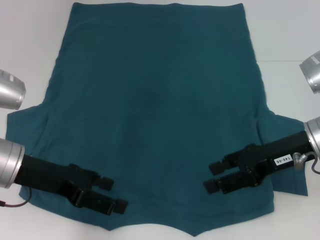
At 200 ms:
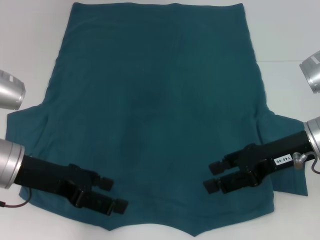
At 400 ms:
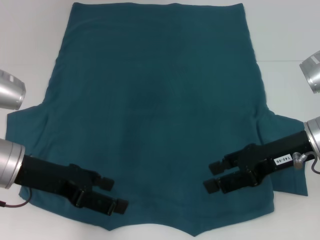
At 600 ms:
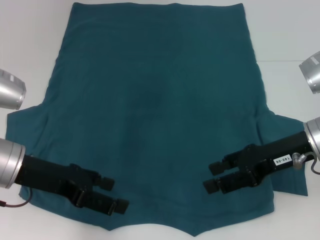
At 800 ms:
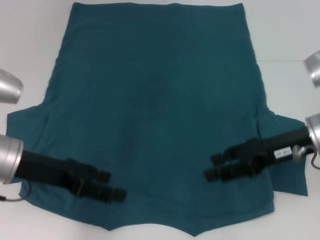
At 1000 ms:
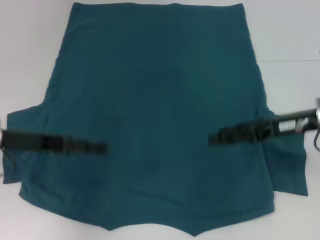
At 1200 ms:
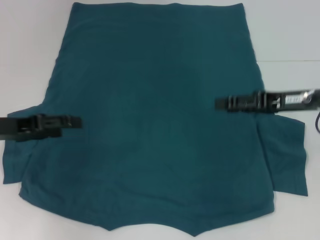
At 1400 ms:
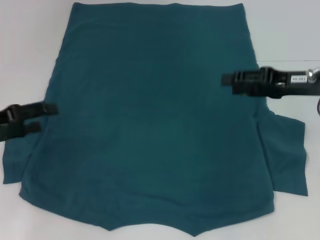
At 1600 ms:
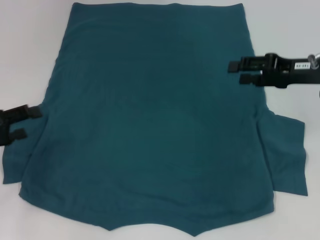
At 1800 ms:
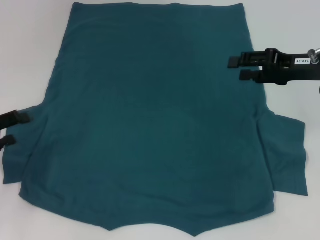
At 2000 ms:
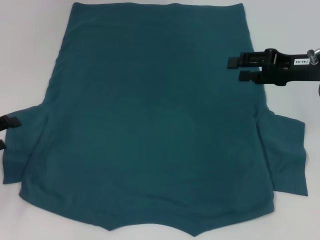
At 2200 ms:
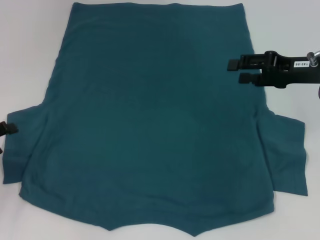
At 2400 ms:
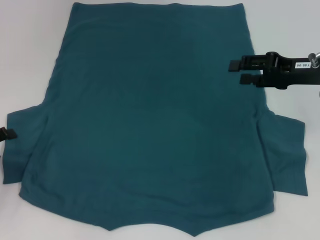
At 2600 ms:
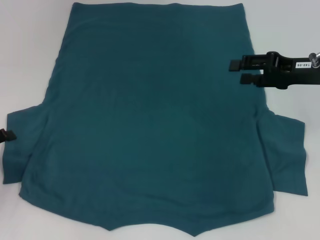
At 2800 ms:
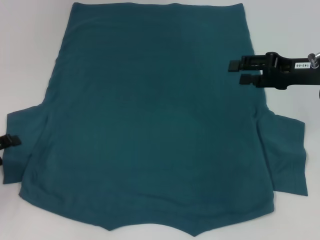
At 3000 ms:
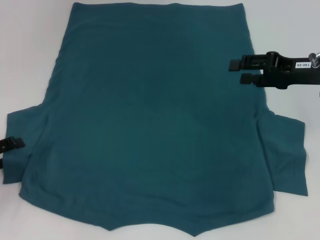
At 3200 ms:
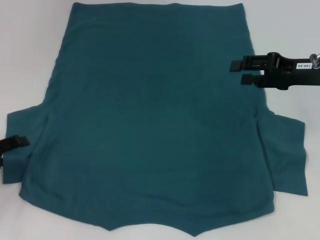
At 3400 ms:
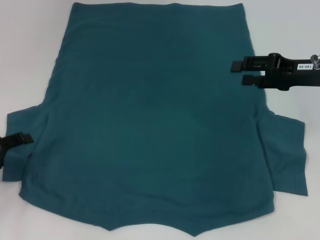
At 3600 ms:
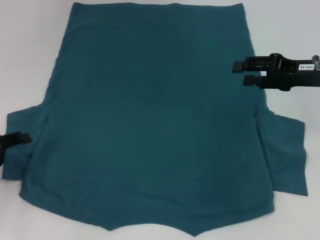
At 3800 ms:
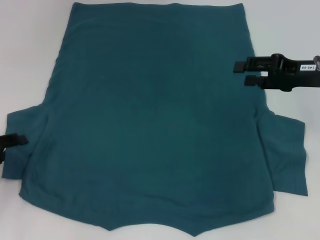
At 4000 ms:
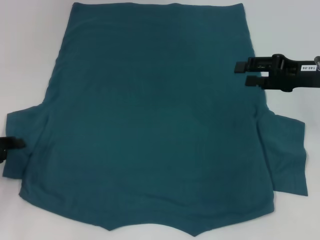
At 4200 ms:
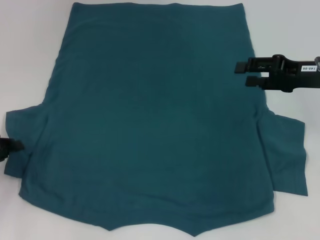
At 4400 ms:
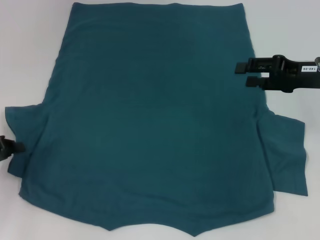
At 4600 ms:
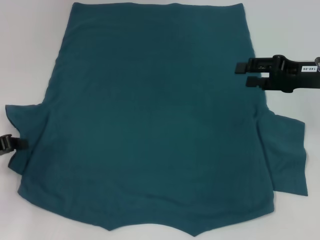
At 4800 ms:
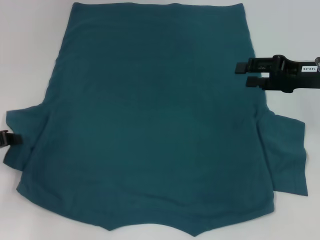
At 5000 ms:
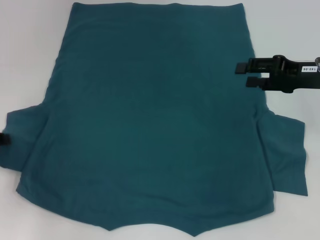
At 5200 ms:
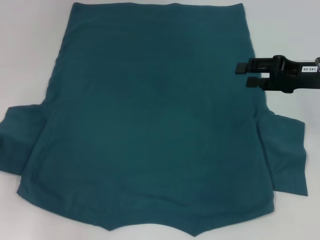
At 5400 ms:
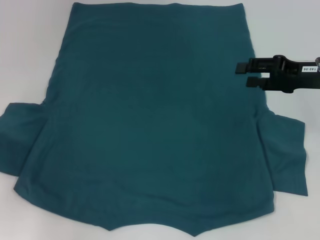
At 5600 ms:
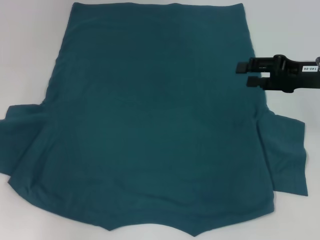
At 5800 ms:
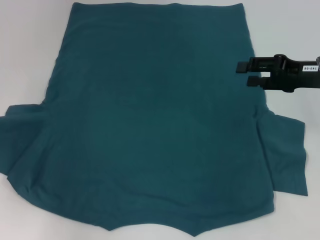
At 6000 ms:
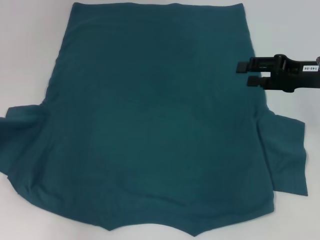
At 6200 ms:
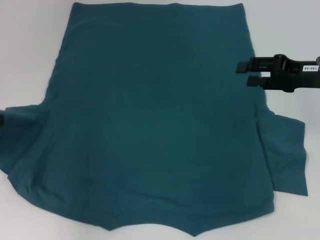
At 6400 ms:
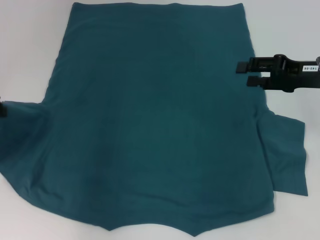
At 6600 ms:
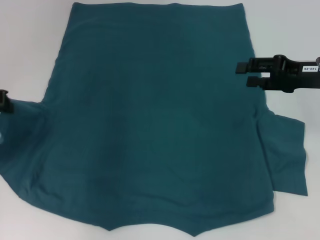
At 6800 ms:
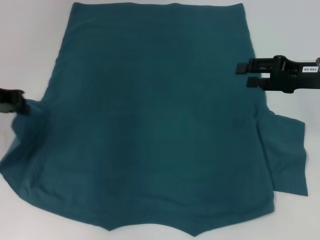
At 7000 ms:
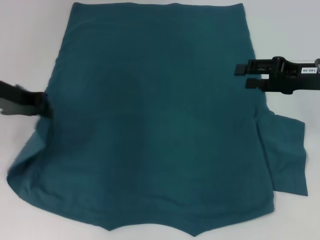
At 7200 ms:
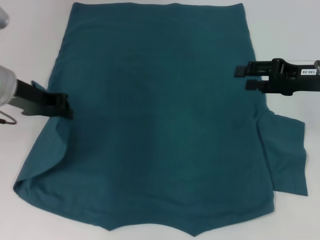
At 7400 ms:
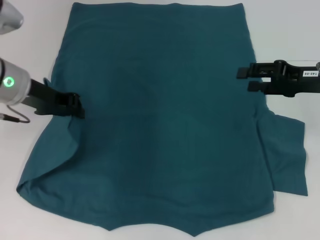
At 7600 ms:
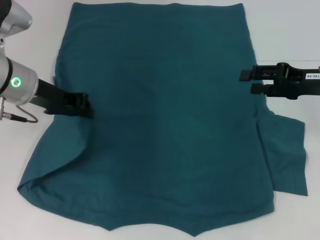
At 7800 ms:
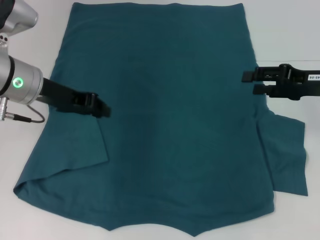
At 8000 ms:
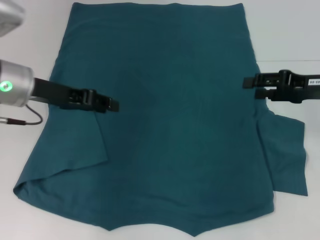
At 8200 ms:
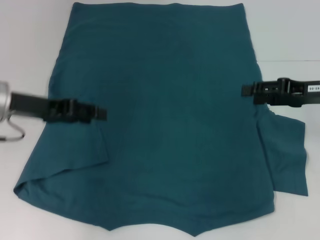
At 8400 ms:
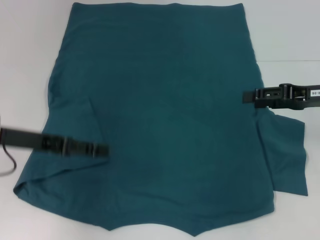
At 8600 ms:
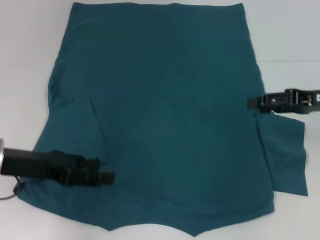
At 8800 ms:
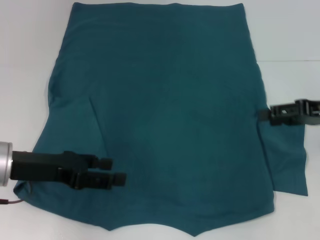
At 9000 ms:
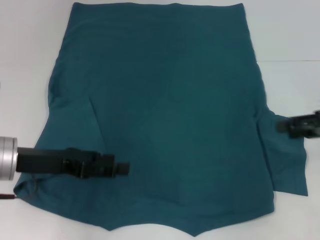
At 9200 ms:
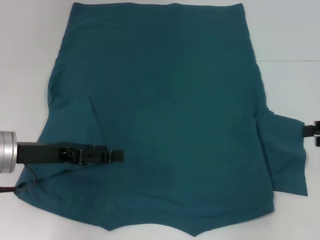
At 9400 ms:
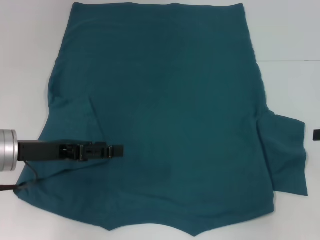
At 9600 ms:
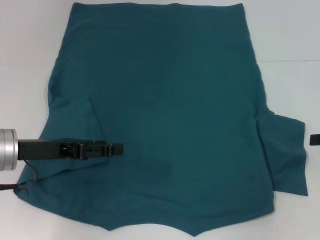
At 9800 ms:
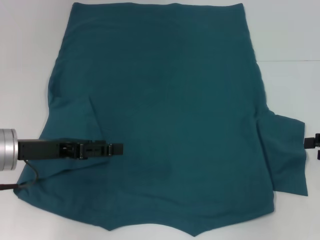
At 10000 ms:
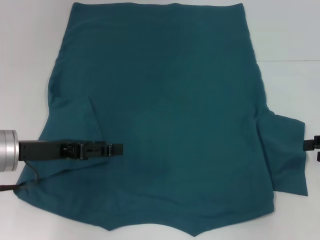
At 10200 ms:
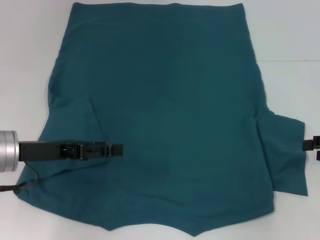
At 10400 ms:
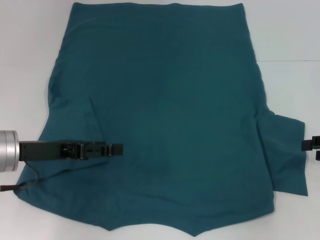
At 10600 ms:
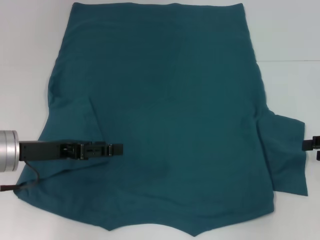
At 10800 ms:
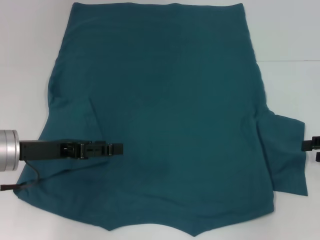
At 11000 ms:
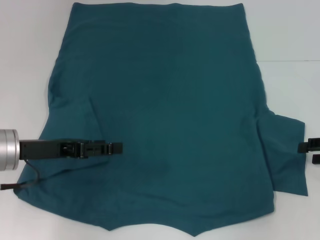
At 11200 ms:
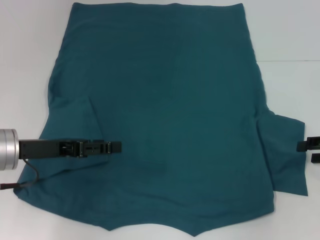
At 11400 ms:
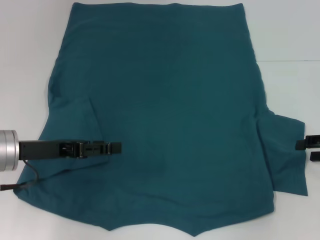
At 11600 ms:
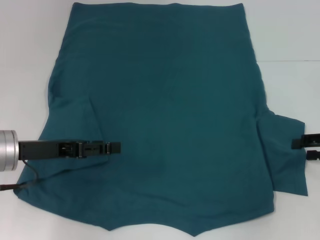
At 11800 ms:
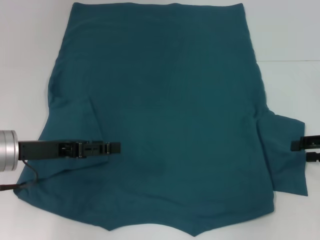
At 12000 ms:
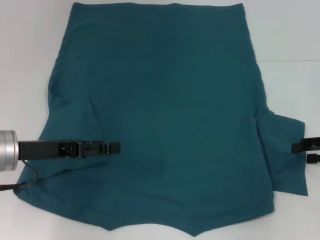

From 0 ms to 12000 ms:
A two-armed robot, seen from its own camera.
Step, from 0 ms to 8400 ms: Fold the bottom left sleeve with your left hand.
From 0 ms to 1600 ms: The right gripper moves forward and to the right, roughly 10 cm. Meanwhile the left gripper shifts about 10 cm to the left.
From 1600 ms to 3000 ms: The left gripper moves approximately 5 cm.
From 3000 ms to 4400 ms: The left gripper closes.
From 4400 ms to 6000 ms: The left gripper goes some 5 cm upward.
From 6000 ms to 7600 ms: The left gripper goes approximately 15 cm to the right and forward.
From 7600 ms to 9000 ms: The right gripper moves to the right, roughly 5 cm, while the left gripper goes roughly 10 cm backward and downward, and opens its fingers.
From 9000 ms to 10400 ms: The right gripper moves about 5 cm.

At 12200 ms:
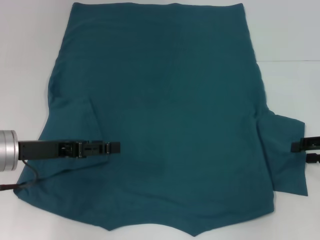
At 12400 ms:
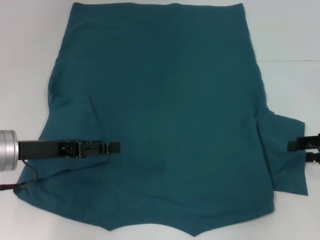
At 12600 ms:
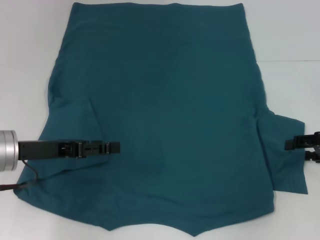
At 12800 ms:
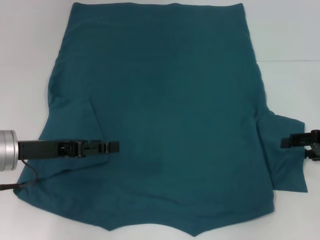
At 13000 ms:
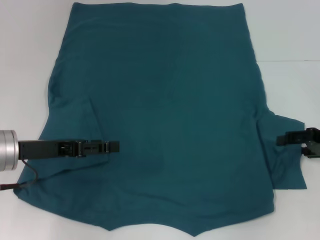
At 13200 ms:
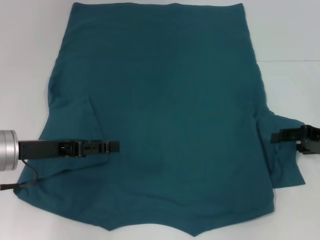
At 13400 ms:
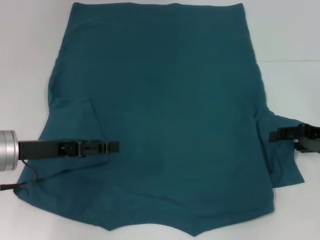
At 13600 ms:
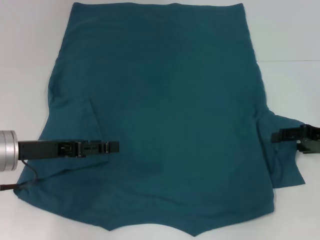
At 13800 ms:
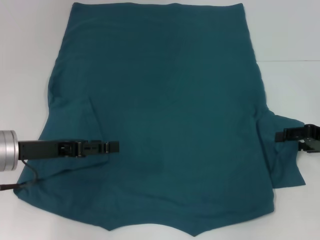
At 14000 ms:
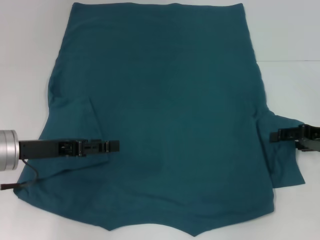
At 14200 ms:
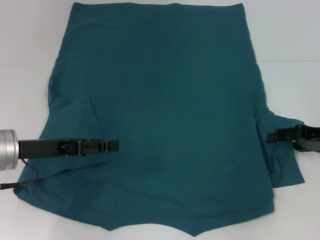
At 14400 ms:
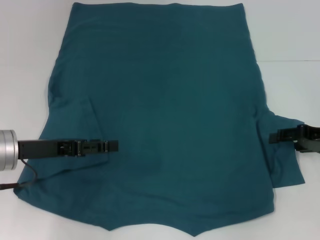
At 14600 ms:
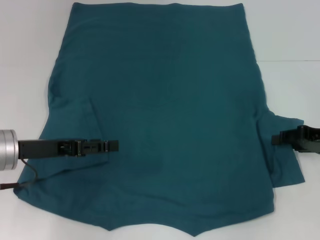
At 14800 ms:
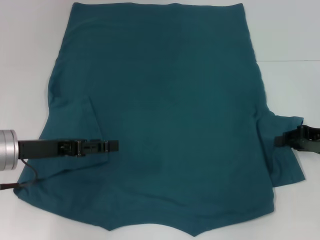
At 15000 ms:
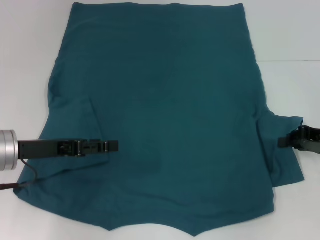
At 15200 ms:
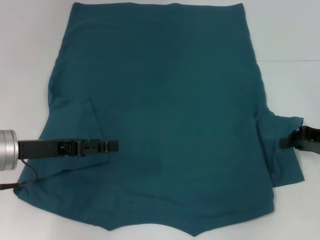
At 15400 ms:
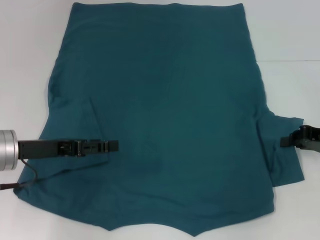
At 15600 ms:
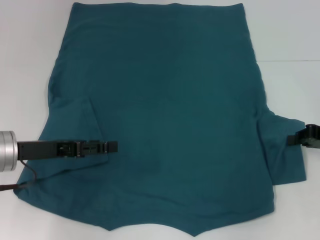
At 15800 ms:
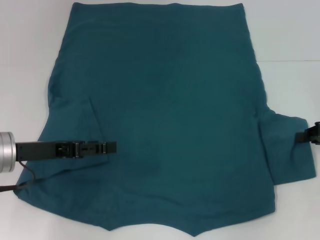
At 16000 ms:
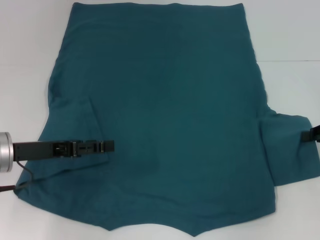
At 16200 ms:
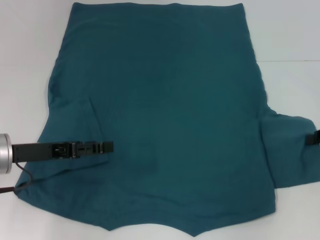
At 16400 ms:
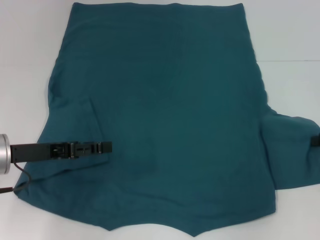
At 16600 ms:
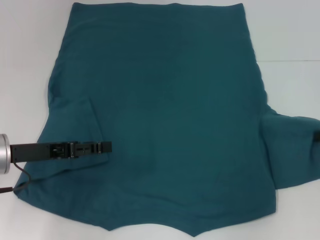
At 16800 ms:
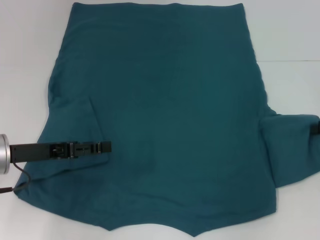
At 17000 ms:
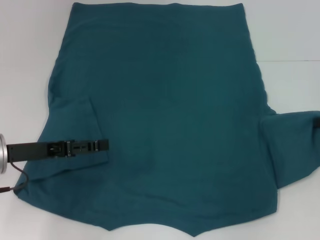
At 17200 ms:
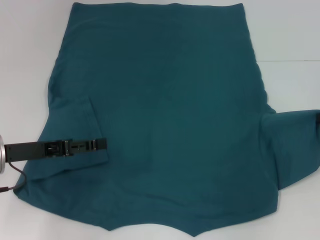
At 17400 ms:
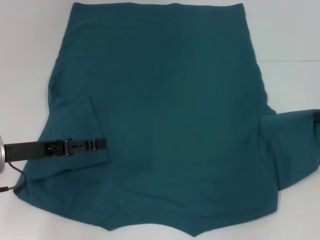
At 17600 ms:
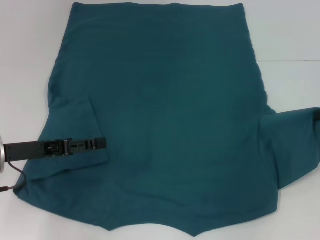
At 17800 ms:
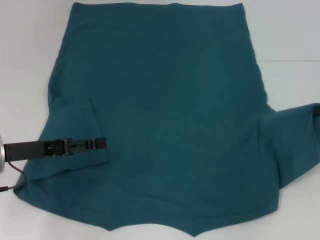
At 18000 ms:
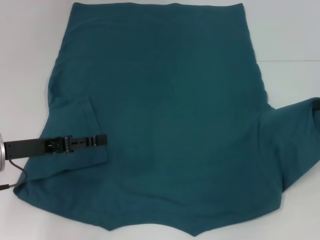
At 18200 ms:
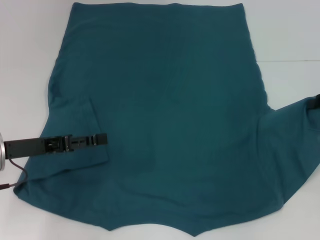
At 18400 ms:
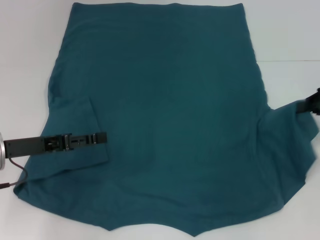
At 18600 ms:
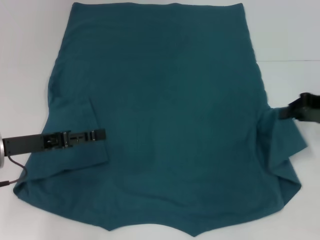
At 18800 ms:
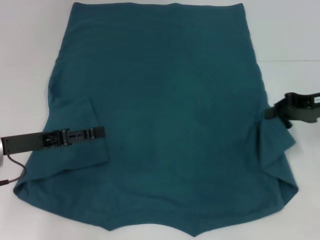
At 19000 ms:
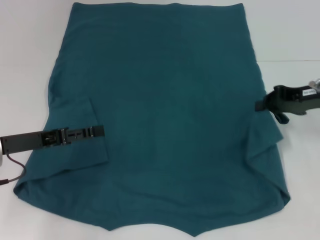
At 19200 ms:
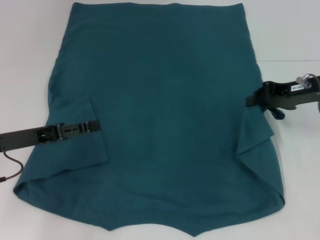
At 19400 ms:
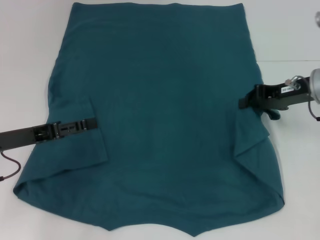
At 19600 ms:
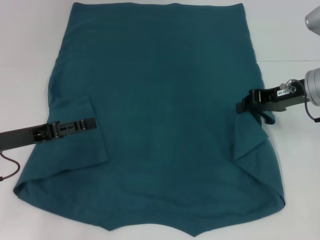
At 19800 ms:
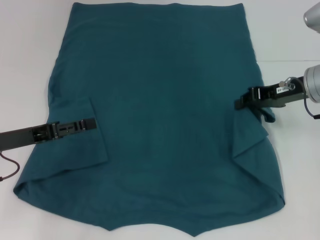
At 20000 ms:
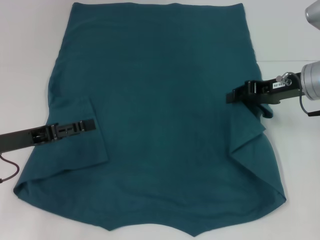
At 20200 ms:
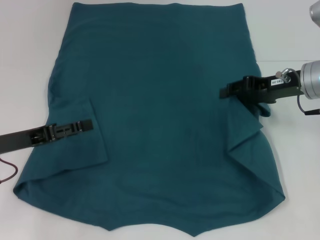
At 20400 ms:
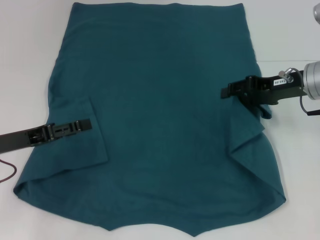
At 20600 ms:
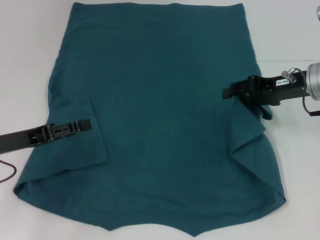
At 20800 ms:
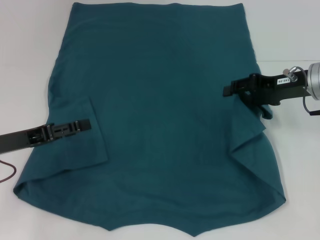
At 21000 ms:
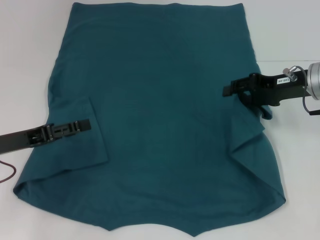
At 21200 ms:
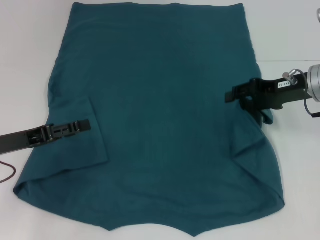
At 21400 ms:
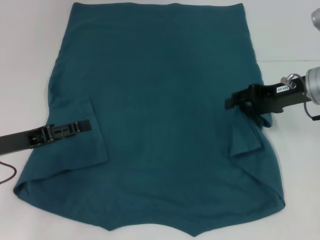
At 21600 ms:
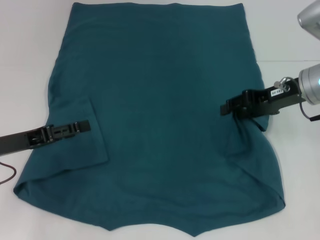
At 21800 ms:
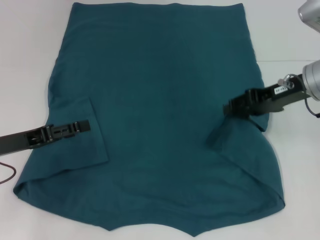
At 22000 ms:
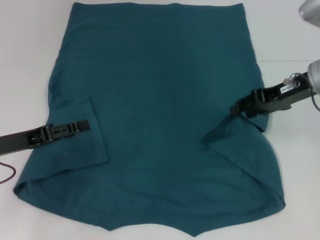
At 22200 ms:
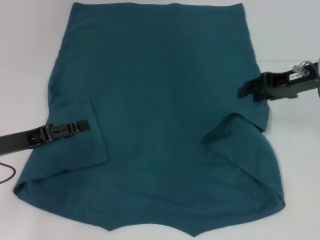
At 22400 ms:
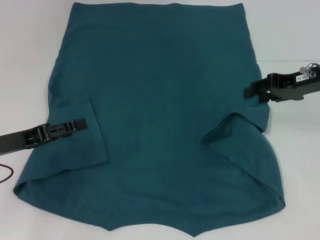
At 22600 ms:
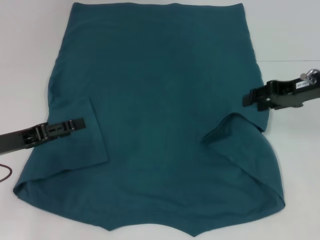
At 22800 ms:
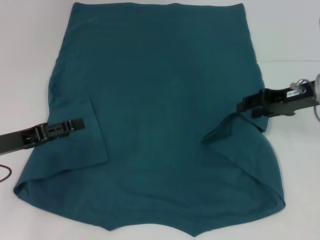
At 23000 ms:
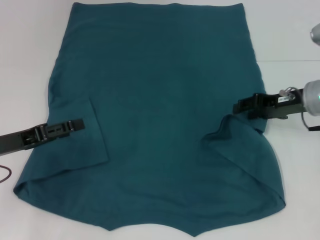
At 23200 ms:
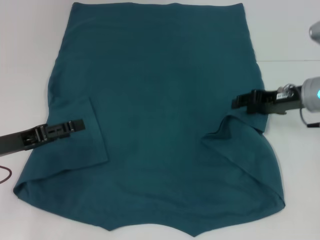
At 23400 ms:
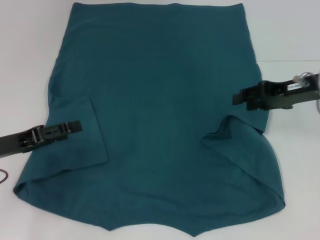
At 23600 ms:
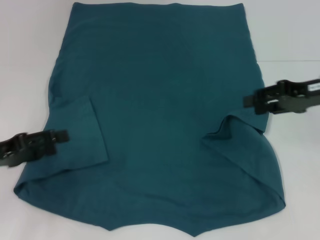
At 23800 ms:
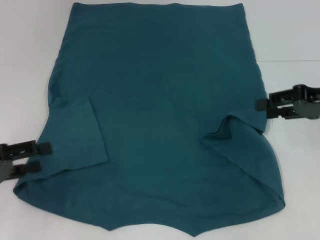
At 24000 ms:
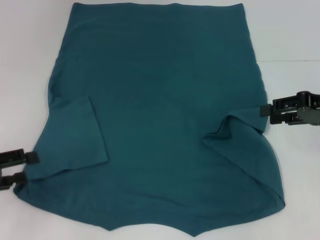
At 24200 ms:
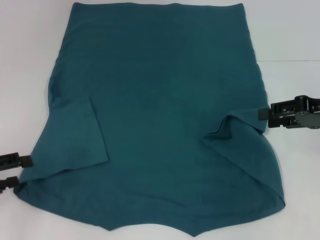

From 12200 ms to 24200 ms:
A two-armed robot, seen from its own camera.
Step, from 12200 ms to 22000 ms: Fold the bottom right sleeve to the right.
From 12200 ms to 13800 ms: The grippers make only small movements.
From 13800 ms to 15200 ms: The right gripper closes up.
From 15200 ms to 16600 ms: There are only small adjustments of the grippers.
From 16600 ms to 18200 ms: The grippers stay close to where they were, moving slightly.
From 18200 ms to 19800 ms: The right gripper is displaced to the left by about 10 cm.
From 19800 ms to 21200 ms: The right gripper opens.
From 21200 ms to 22600 ms: The grippers move only a little.
From 22600 ms to 24200 ms: The right gripper moves about 5 cm. The left gripper travels to the left by approximately 5 cm.
